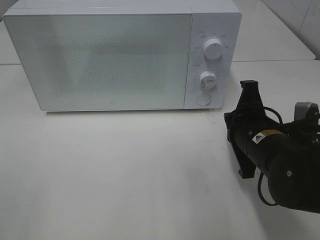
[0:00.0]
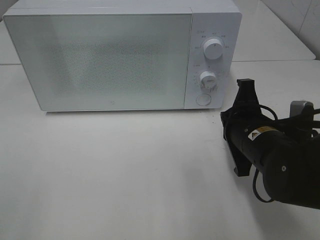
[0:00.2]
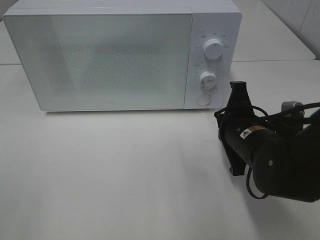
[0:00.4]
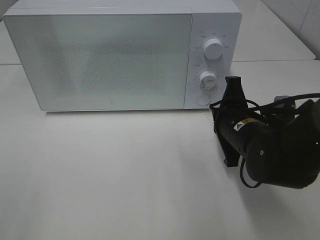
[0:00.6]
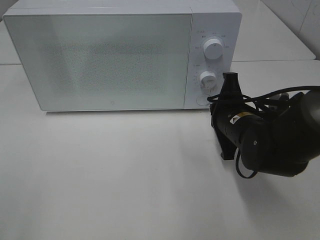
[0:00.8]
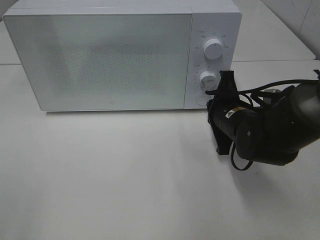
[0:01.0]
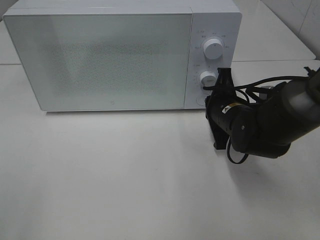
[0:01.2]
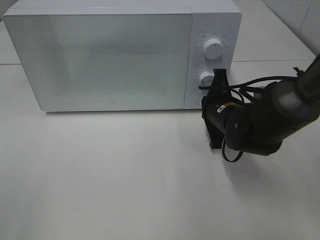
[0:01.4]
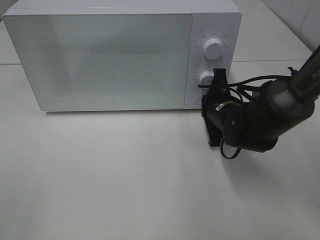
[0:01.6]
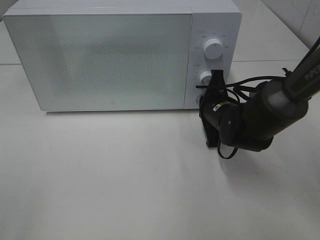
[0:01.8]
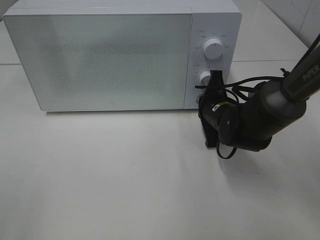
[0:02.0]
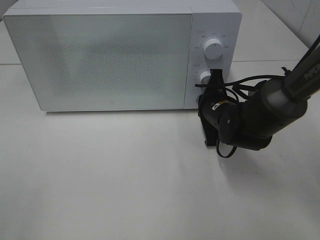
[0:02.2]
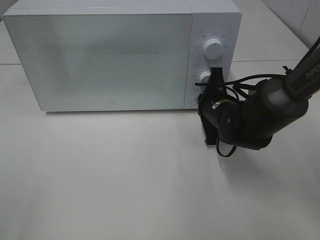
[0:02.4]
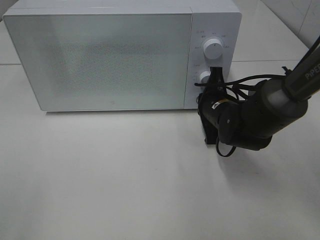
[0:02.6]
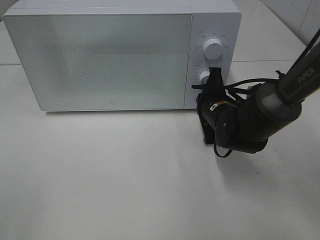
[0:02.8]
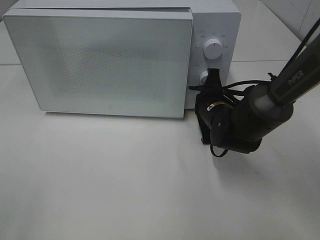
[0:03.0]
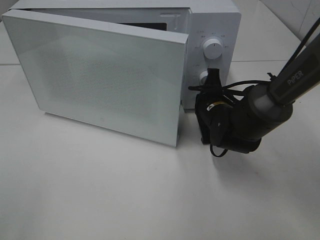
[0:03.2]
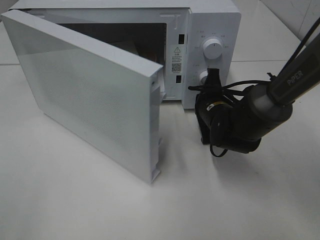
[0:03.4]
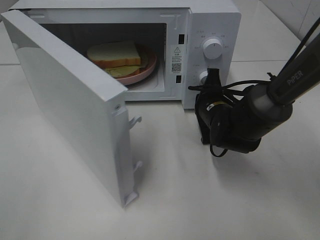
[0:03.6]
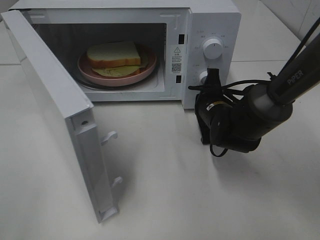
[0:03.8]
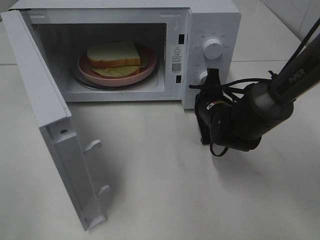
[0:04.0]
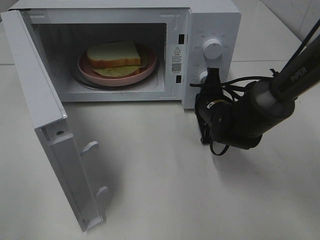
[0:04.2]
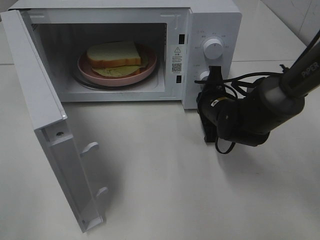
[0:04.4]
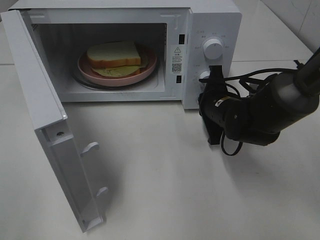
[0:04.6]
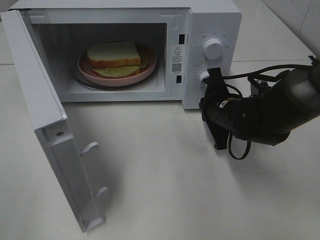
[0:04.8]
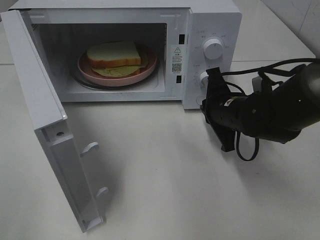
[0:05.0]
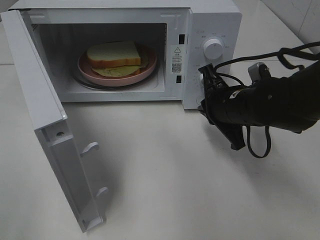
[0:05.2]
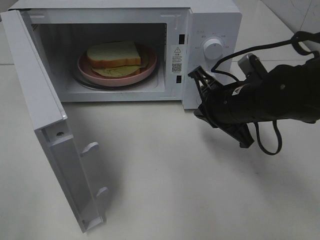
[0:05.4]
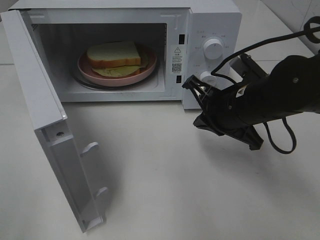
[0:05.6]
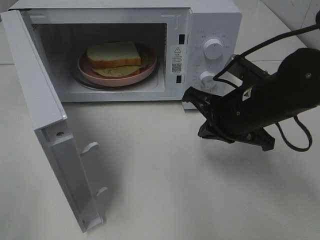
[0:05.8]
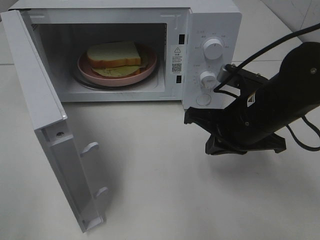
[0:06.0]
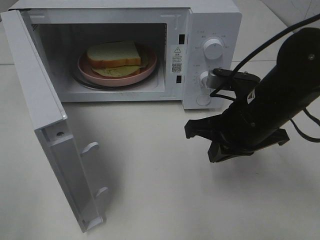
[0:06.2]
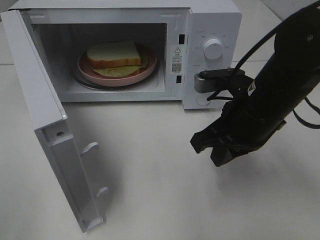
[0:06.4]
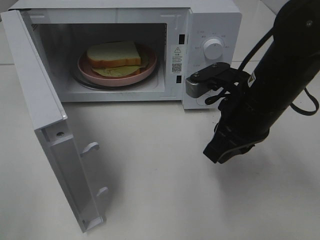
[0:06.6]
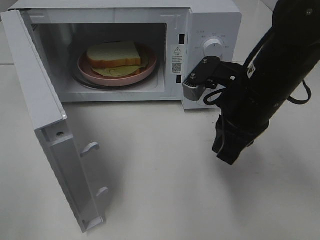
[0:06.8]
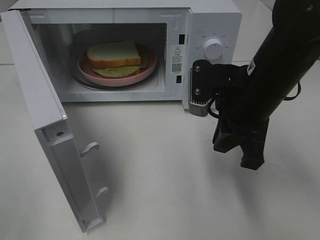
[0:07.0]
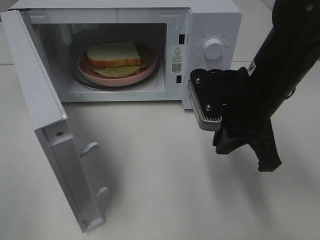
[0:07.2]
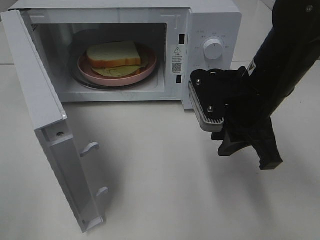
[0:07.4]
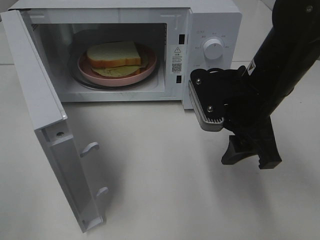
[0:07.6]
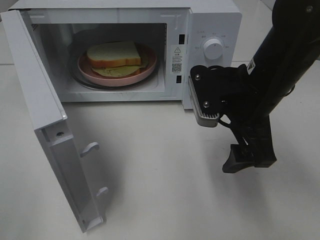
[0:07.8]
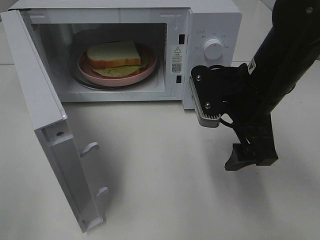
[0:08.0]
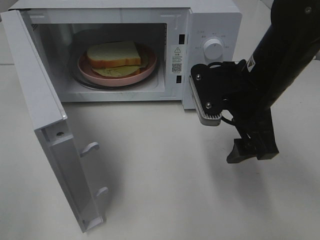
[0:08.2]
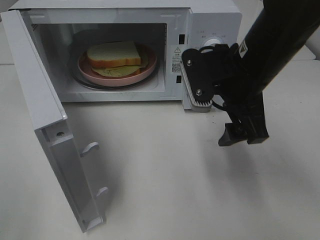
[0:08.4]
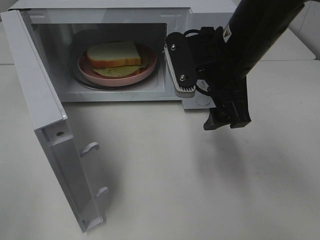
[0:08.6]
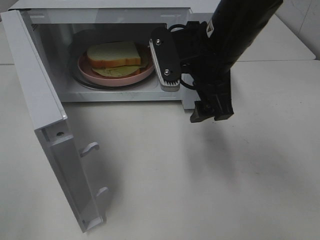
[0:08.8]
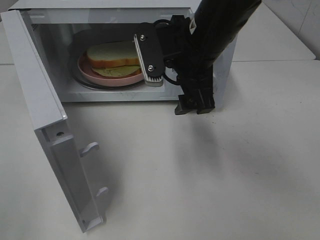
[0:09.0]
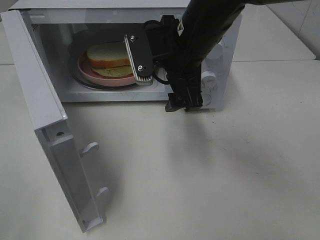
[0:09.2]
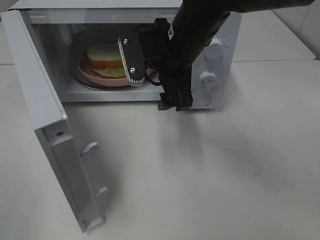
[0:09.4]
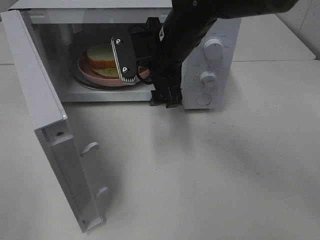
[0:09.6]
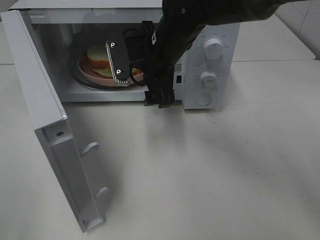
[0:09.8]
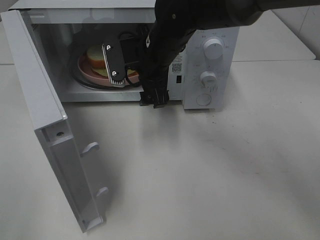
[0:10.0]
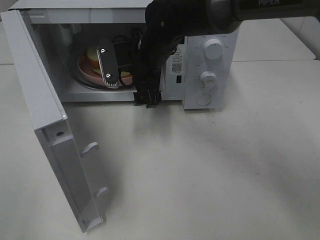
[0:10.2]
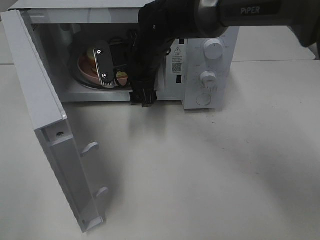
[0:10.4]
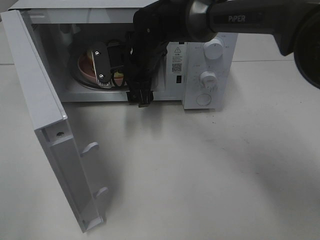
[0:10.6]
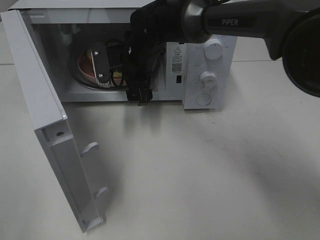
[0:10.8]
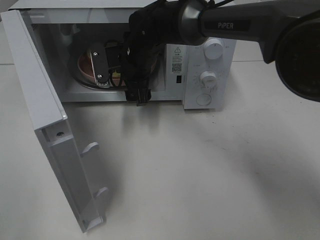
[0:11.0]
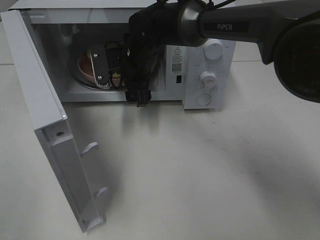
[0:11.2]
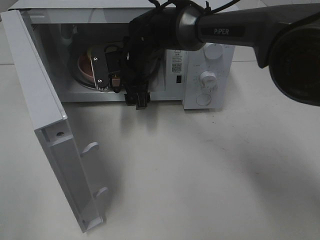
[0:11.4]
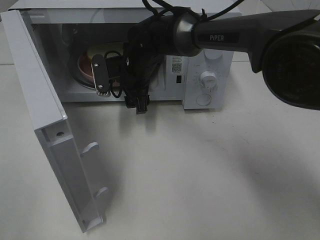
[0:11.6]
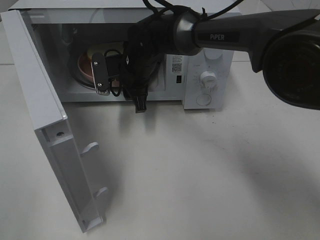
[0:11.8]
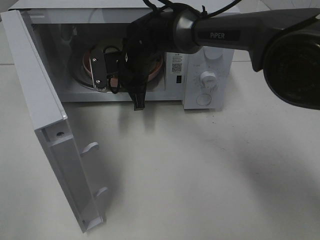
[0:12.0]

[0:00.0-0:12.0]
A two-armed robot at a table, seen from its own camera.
Task of the whole recording: Heat Sandwich.
Step, 0:00.0 to 0:05.0: Right hand: press the switch.
0:00.0 to 0:01.6: The right gripper goes roughly 10 cm forward.
0:01.6 to 0:03.0: The grippers stay close to where they were, moving slightly.
0:04.4 to 0:06.0: The right gripper heads backward and upward, covering about 15 cm.
0:06.0 to 0:07.6: The right gripper opens up.
0:07.6 to 0:09.0: The right gripper travels to the left and forward by about 10 cm.
0:09.0 to 0:10.4: The right gripper moves forward, to the left and downward, about 15 cm.
0:10.4 to 0:12.0: The right gripper closes.

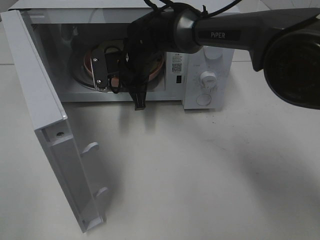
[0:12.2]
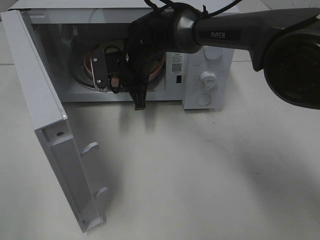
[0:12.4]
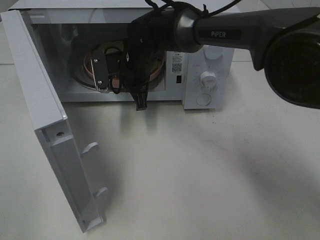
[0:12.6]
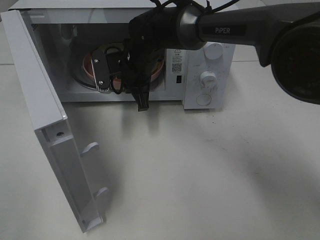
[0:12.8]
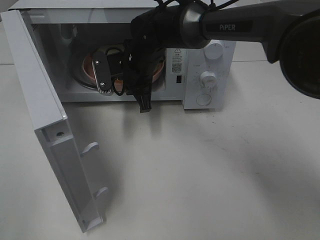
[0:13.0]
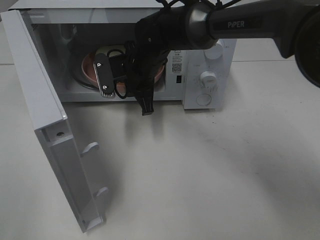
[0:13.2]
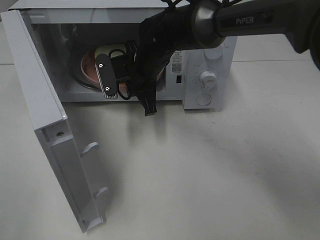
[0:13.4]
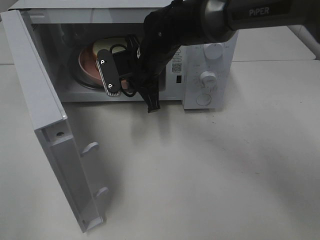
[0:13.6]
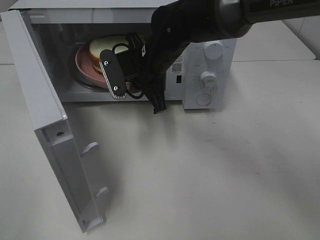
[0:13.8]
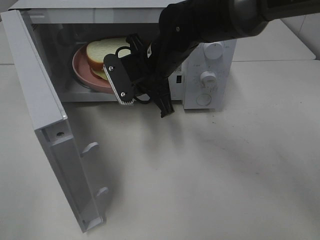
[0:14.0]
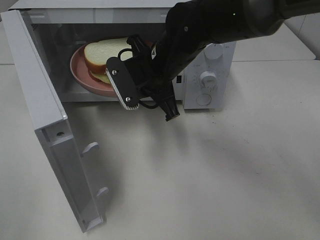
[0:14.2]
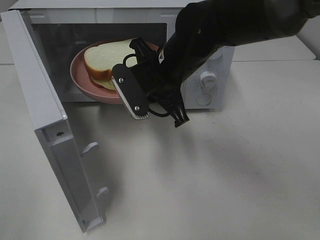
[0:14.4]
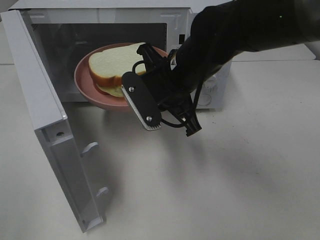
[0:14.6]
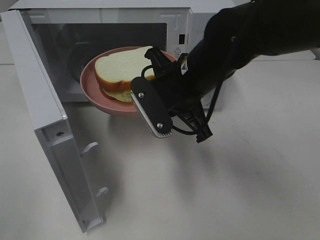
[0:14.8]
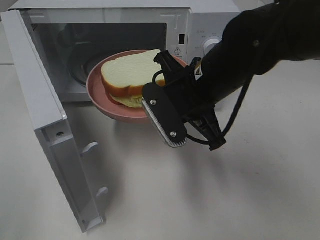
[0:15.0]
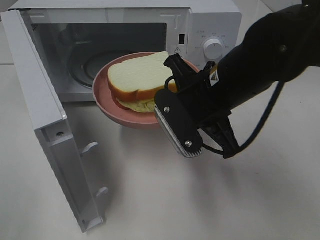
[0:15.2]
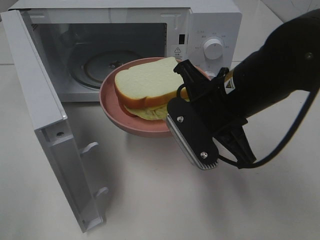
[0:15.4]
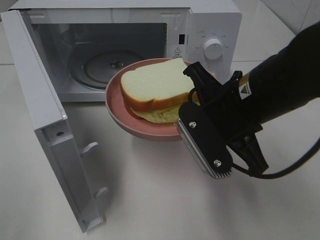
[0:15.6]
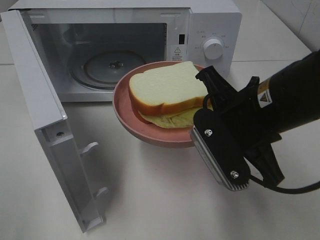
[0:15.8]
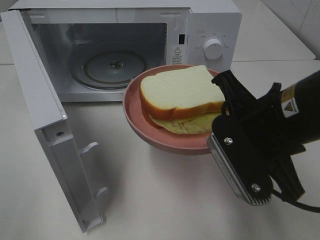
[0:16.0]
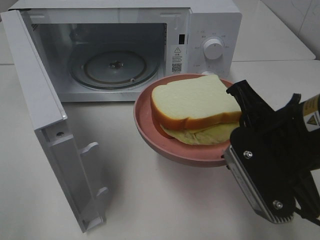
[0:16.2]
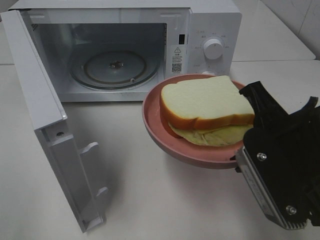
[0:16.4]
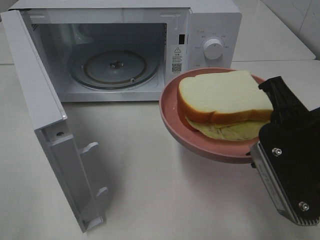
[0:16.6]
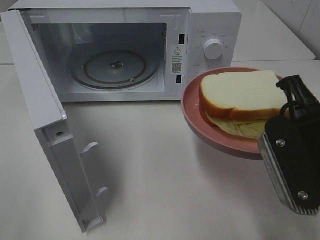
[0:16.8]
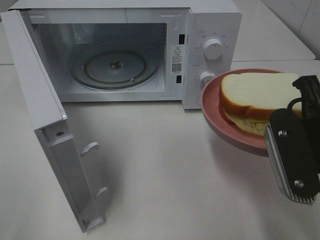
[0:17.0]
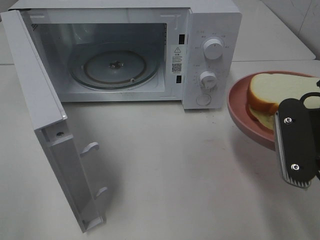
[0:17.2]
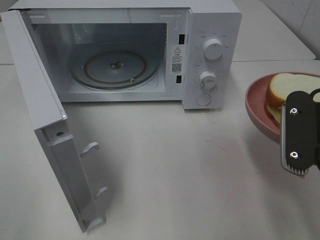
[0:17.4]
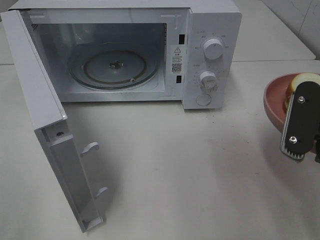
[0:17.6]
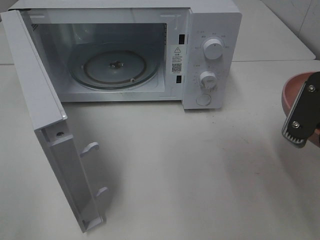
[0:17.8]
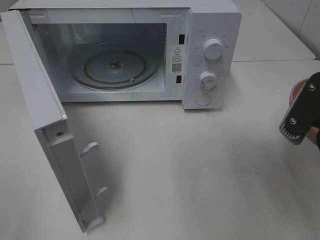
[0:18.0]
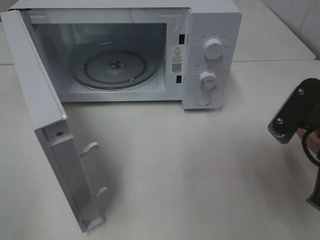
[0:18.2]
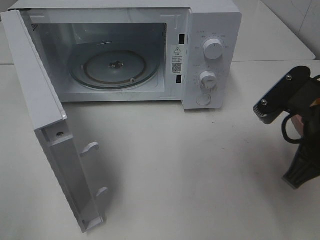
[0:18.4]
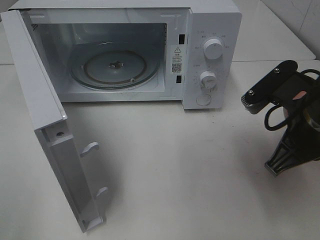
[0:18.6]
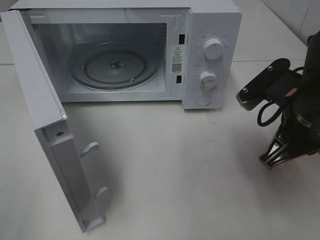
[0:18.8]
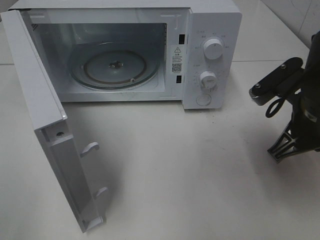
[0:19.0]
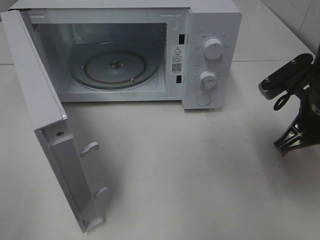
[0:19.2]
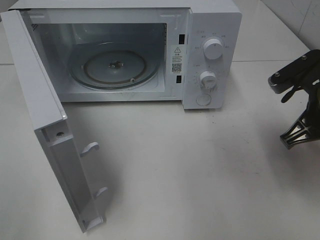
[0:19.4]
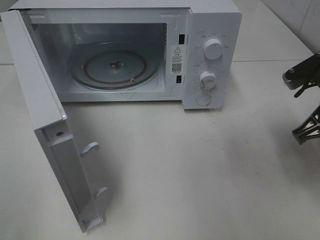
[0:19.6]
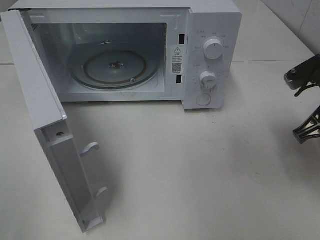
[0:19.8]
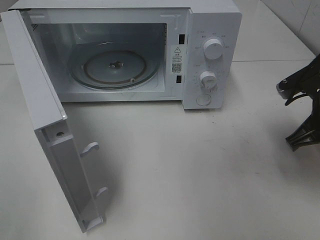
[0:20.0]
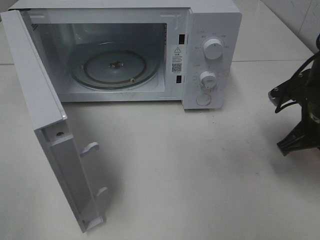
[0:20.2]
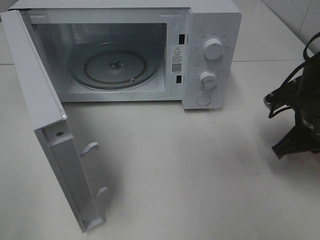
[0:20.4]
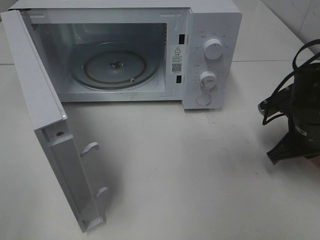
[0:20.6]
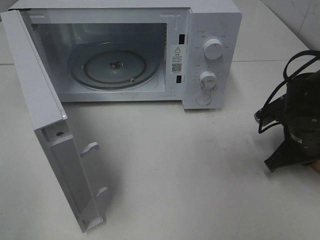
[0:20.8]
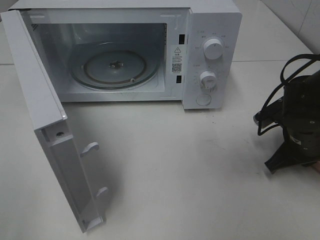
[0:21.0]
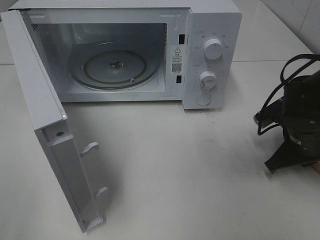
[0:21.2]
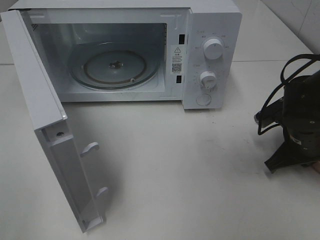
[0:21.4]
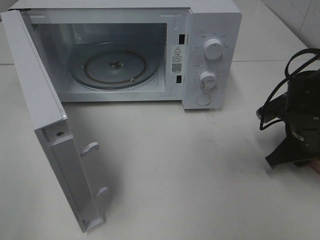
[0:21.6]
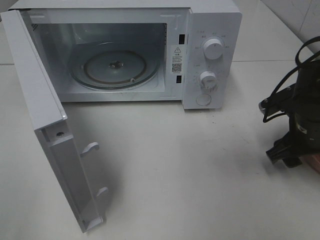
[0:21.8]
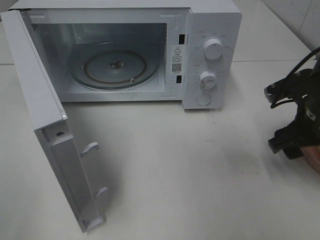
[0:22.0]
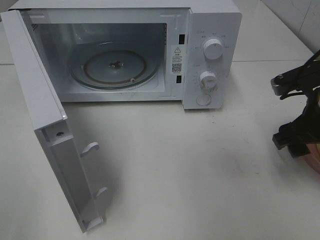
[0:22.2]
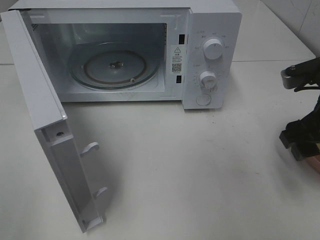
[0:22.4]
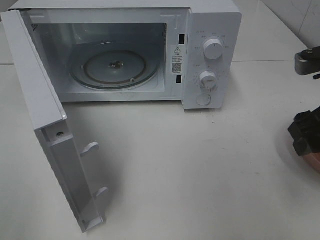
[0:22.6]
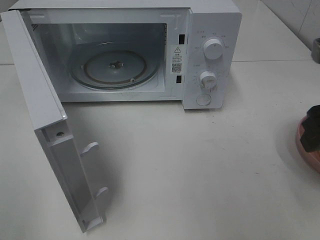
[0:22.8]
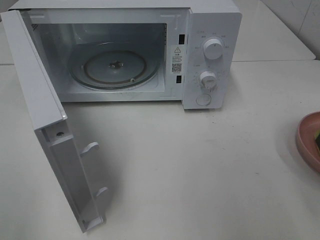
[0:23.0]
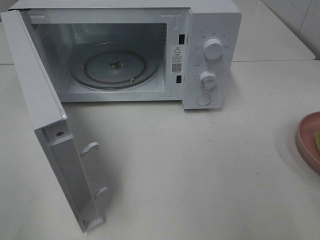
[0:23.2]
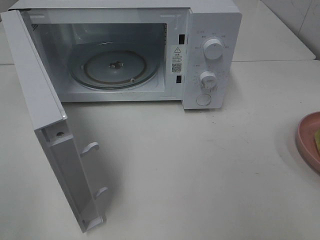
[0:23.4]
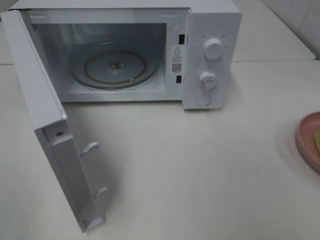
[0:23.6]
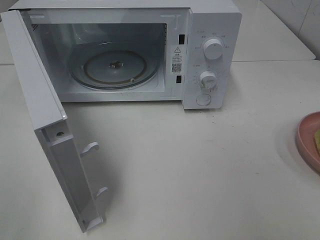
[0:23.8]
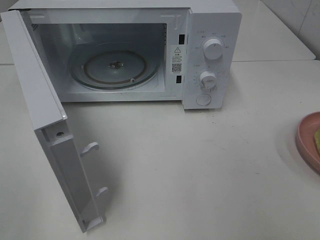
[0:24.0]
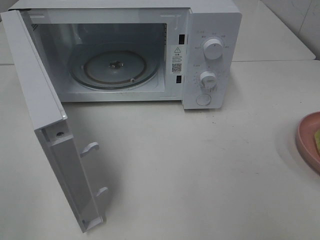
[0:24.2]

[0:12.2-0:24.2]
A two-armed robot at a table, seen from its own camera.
Task of the whole recording: Heat Sandwich.
Step, 0:12.6 to 0:22.2: Right hand: place the plate on the table.
0:12.2 to 0:13.8: The right gripper travels backward by some 5 cm.
0:13.8 to 0:15.2: The right gripper goes approximately 15 cm backward and to the right.
0:15.2 to 0:16.6: The right gripper heads backward and to the right, covering some 15 cm.
0:18.2 to 0:19.8: The right gripper travels forward by about 10 cm.
0:19.8 to 0:21.2: The right gripper goes some 10 cm downward.
0:21.2 to 0:22.6: The right gripper goes approximately 15 cm upward and backward, and opens.
0:22.6 to 0:24.2: The right gripper is displaced backward by some 20 cm.
